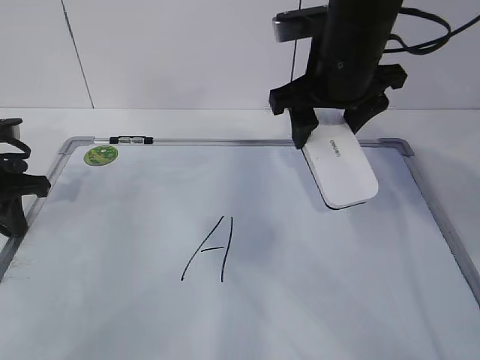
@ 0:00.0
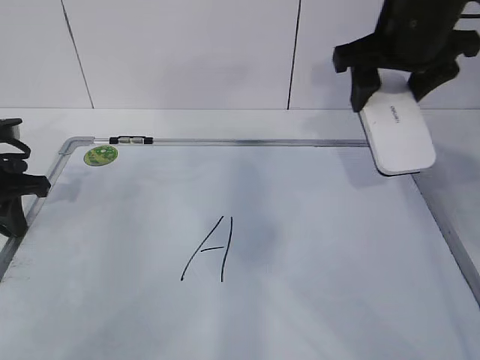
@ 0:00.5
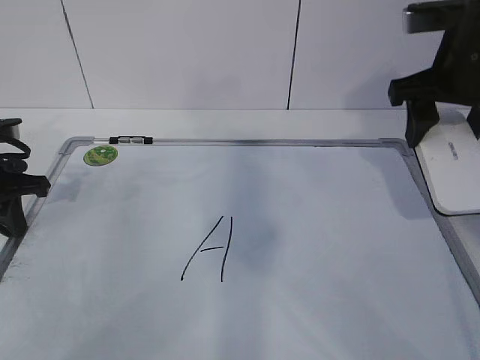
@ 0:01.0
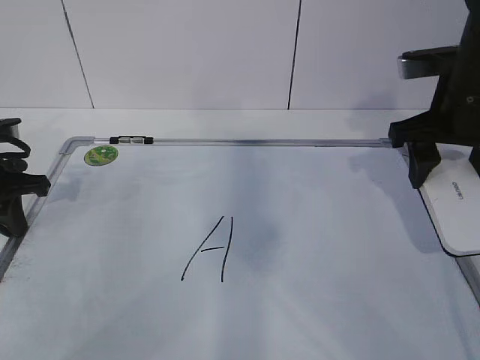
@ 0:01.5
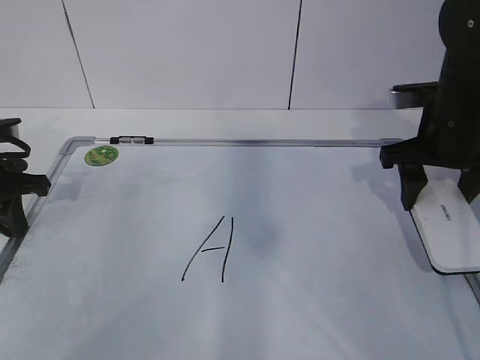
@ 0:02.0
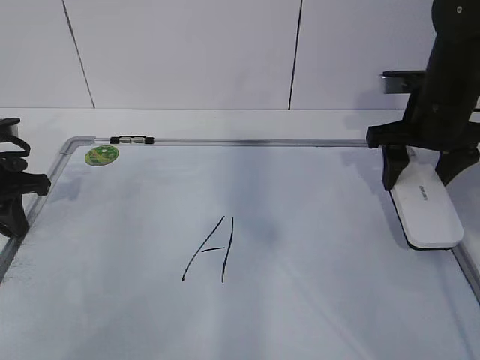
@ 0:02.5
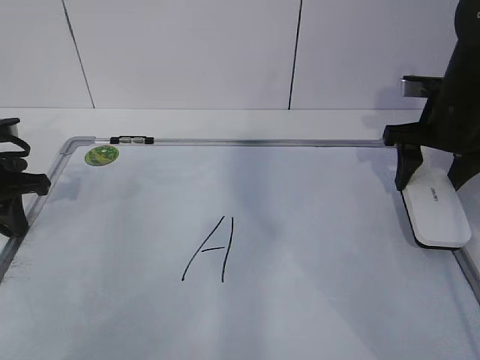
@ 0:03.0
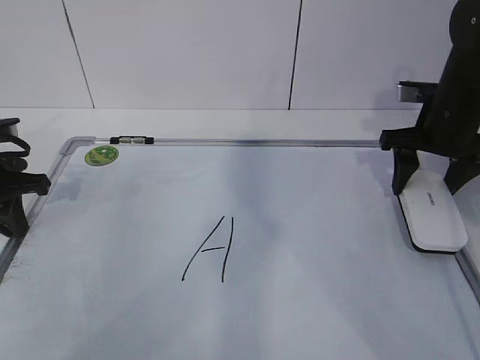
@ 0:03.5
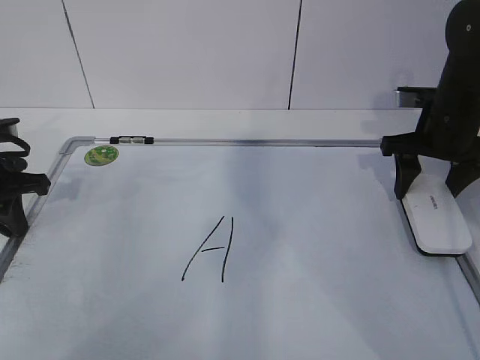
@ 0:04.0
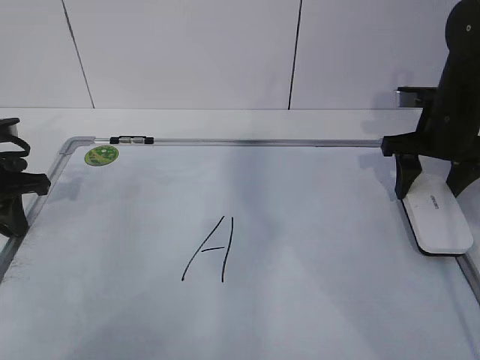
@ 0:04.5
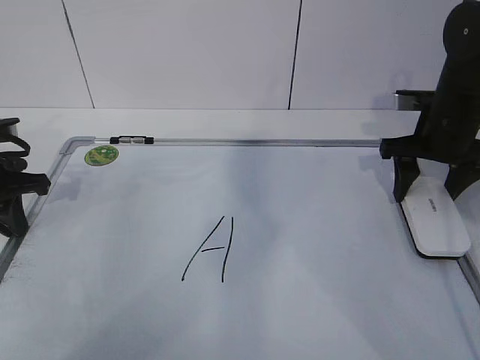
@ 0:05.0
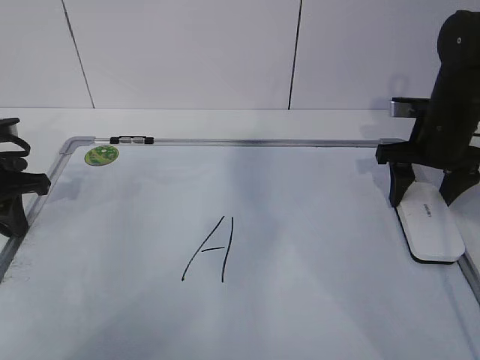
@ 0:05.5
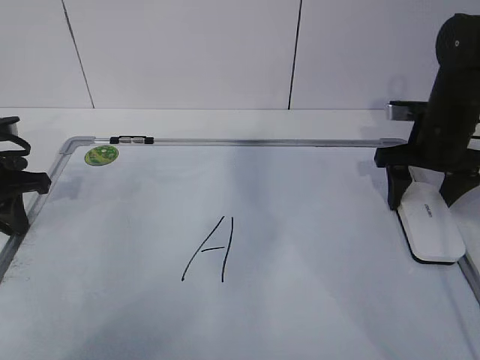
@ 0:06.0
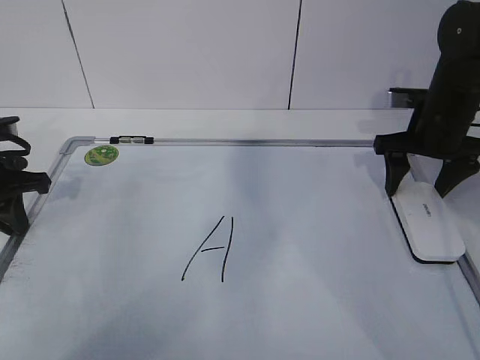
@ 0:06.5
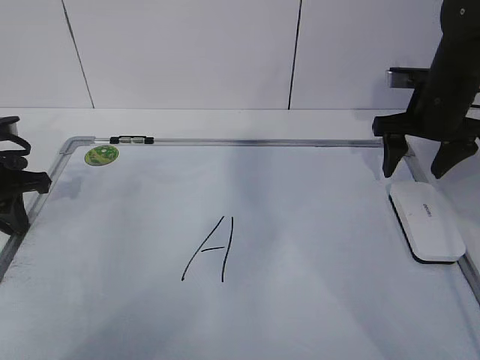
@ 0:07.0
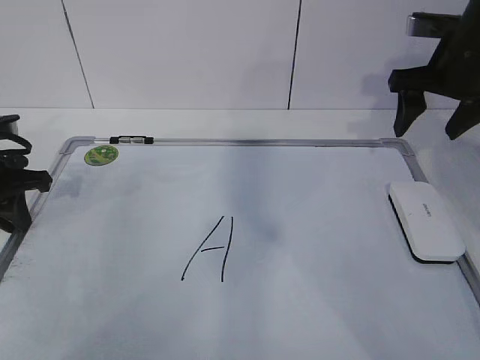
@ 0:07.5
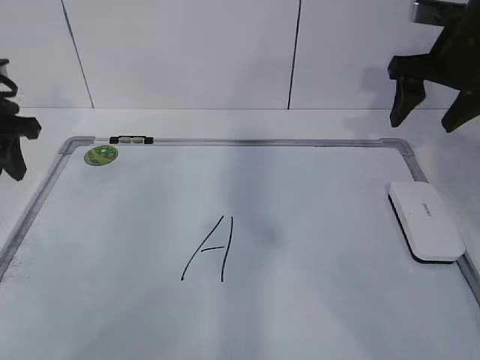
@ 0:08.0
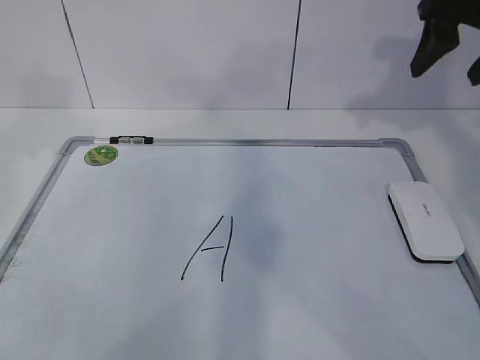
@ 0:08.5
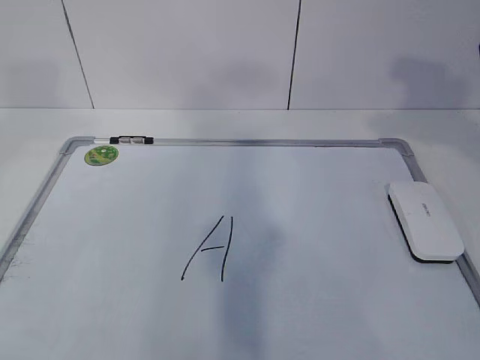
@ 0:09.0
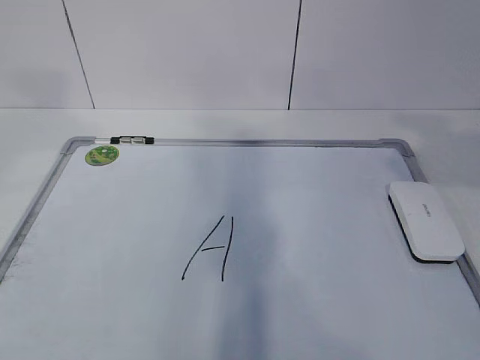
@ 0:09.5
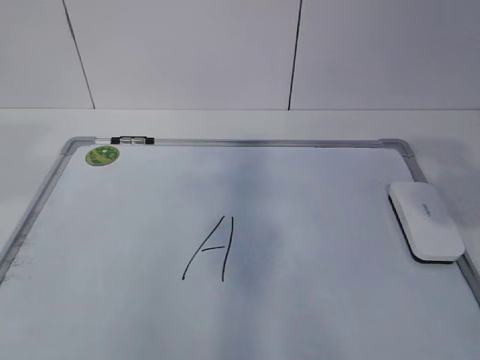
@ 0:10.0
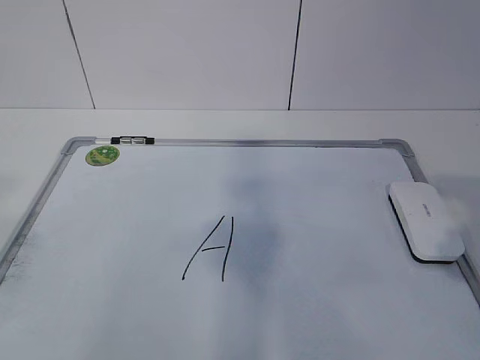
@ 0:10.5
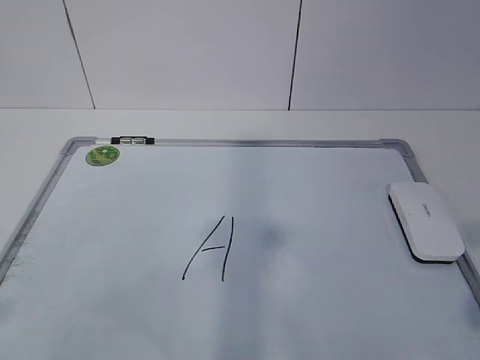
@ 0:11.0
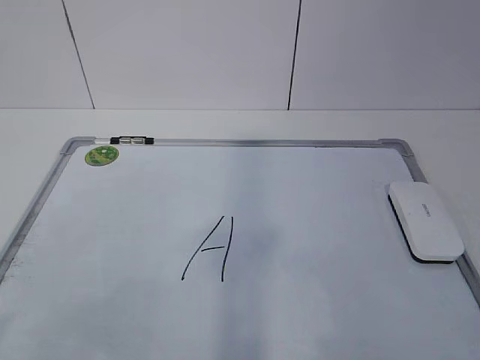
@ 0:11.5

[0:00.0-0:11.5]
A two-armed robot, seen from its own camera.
Task of the whole recording: pick up the eraser on the blackboard and erase the letter "a".
0:00.0 to 0:02.0: The right gripper moves to the right and downward, approximately 15 cm.
0:02.0 to 0:04.0: The right gripper changes place by approximately 5 cm.
0:04.0 to 0:06.0: The right gripper opens.
0:06.0 to 0:07.5: The right gripper shifts about 10 cm upward.
0:07.5 to 0:09.5: The left gripper moves upward and backward, roughly 30 cm, and opens its fingers. The right gripper moves backward and upward, some 25 cm.
0:09.5 to 0:11.5: The left gripper travels backward and downward by about 25 cm.
